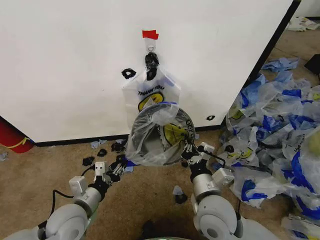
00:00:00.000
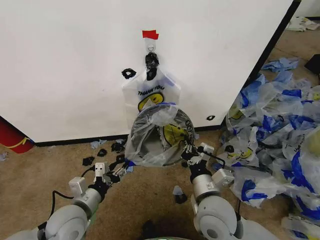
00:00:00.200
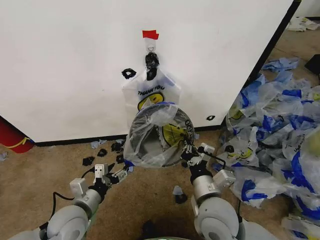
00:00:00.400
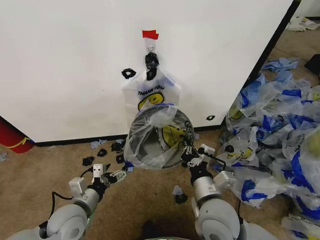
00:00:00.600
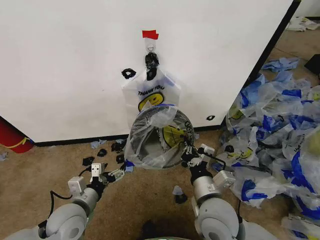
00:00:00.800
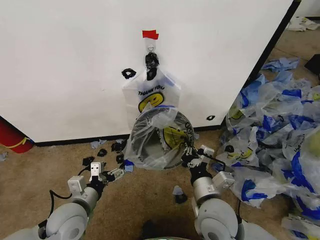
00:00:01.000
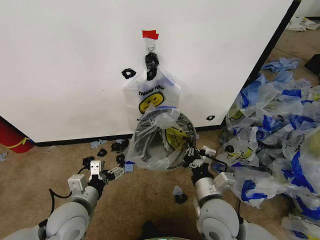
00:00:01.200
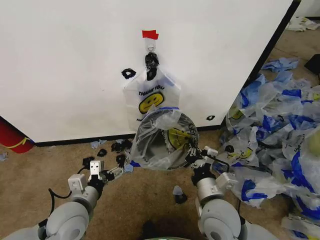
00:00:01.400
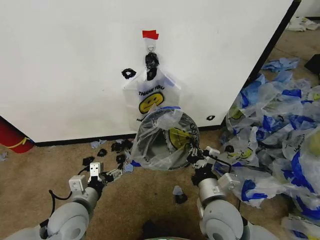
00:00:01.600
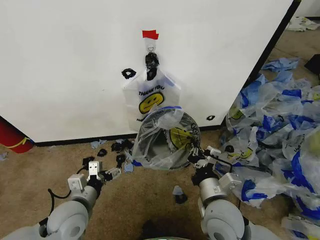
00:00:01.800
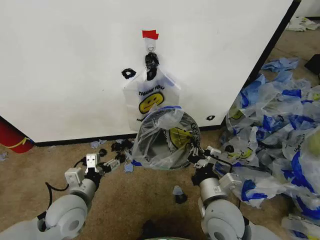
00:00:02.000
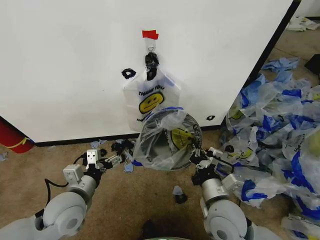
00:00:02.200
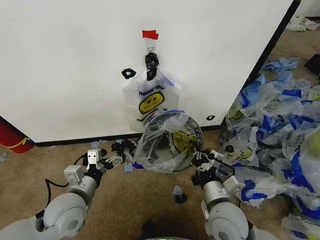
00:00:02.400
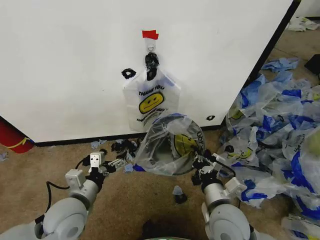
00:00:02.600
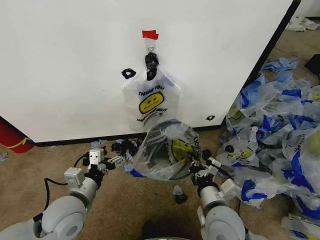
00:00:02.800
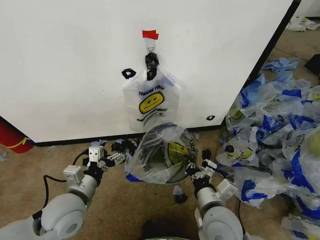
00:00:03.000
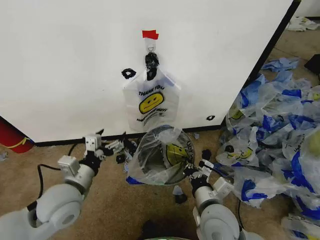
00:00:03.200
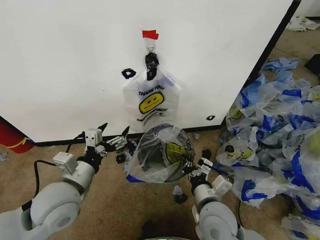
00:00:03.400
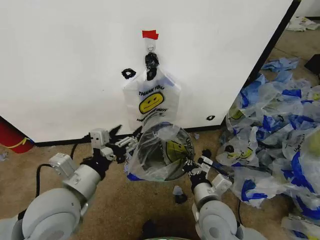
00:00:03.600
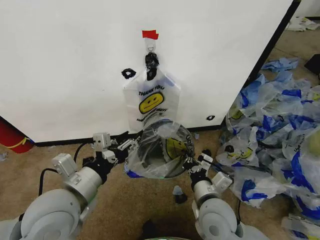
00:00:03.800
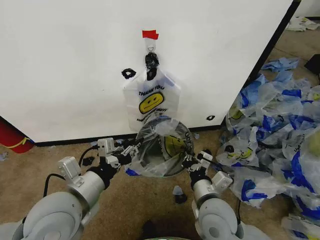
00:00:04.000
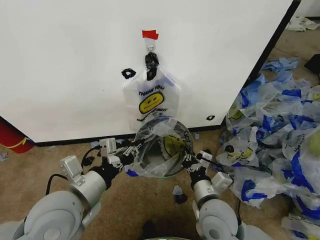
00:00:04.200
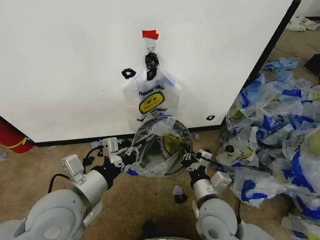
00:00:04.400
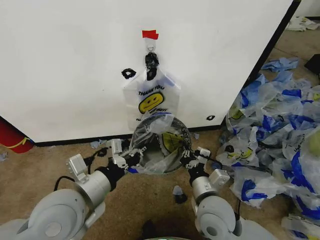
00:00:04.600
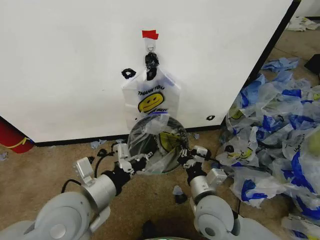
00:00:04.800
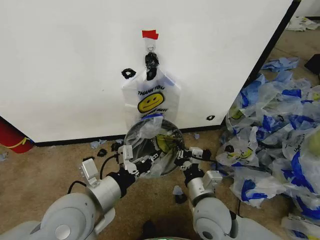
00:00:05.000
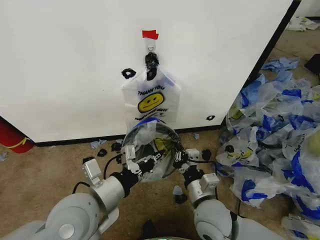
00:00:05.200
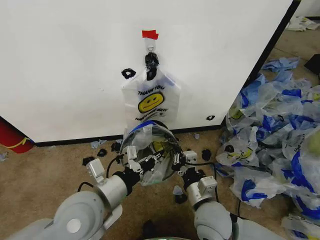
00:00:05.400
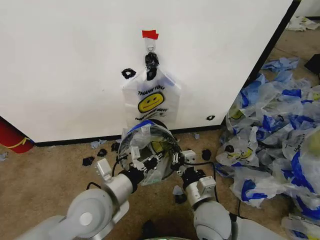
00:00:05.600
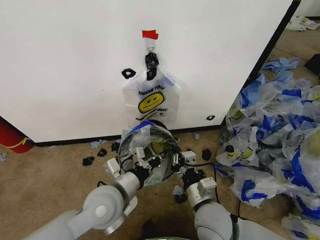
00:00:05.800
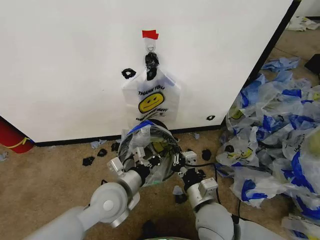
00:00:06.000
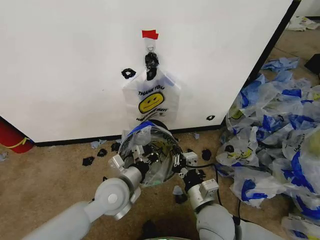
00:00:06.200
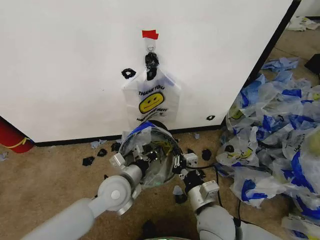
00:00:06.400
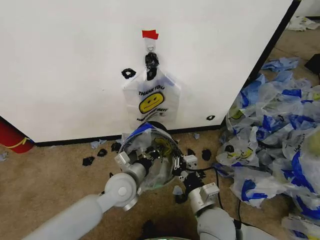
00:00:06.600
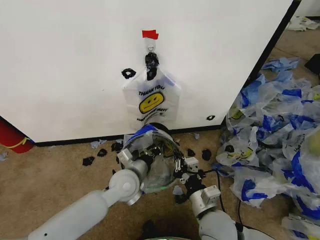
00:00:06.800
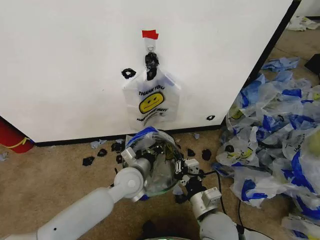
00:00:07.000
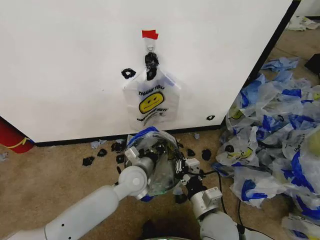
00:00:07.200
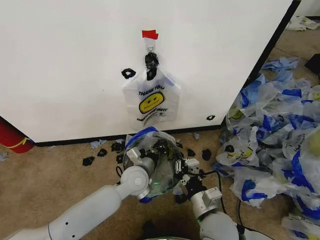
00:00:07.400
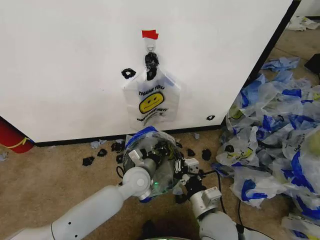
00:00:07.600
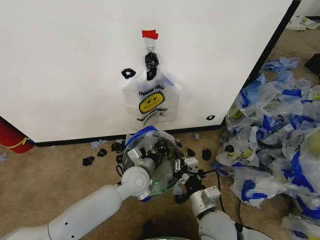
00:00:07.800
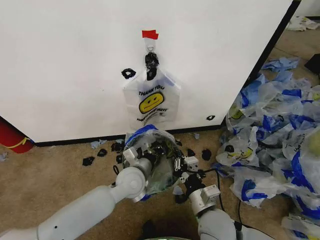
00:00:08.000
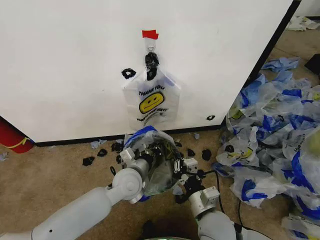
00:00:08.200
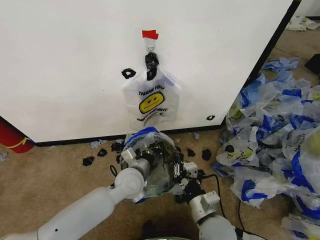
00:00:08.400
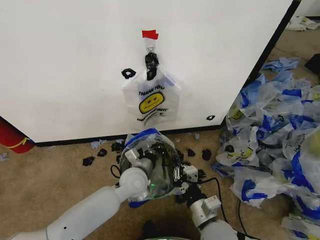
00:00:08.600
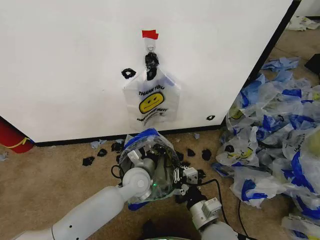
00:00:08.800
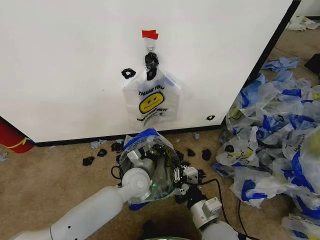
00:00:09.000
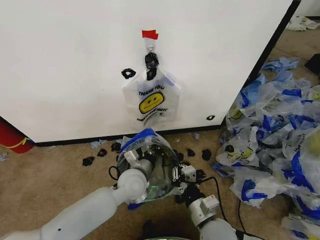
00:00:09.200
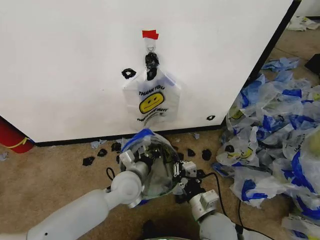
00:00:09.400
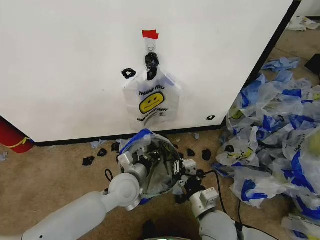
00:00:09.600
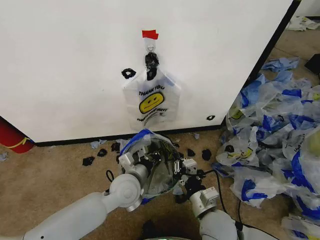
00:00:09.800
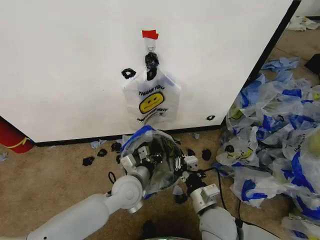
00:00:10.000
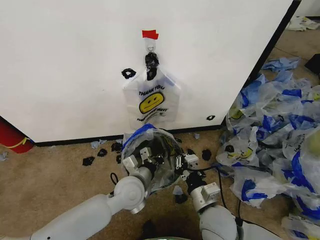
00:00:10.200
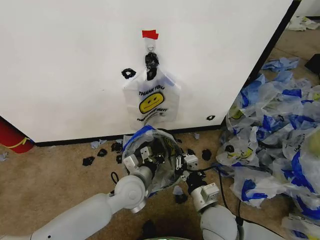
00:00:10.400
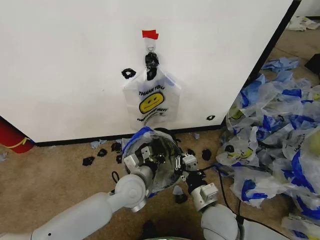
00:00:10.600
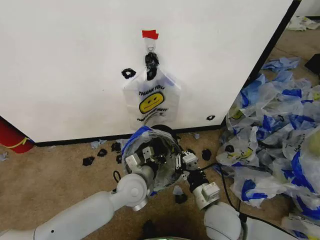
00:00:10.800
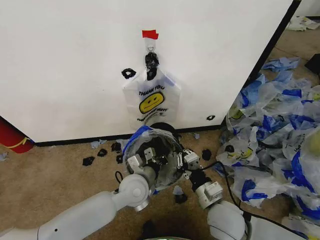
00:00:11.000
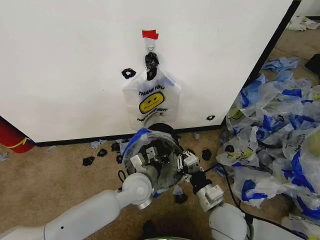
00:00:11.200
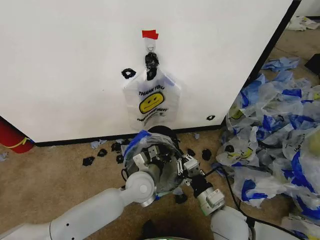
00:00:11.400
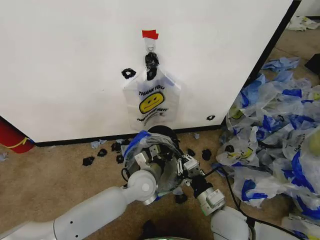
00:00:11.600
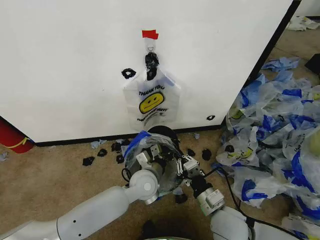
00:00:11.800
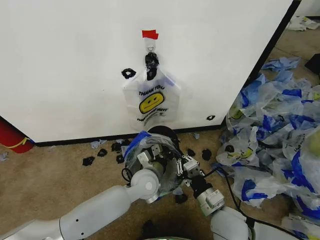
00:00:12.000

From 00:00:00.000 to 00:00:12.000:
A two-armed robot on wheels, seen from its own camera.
Task of the whole recording: Pick up the garbage bag from the wall and place it over the trash bin.
From 00:00:00.000 to 00:00:01.600: The left gripper opens its fingers.
From 00:00:01.600 to 00:00:03.000: There are only small adjustments of the grippers.
From 00:00:03.000 to 00:00:04.400: The left gripper shifts roughly 10 cm upward, and closes its fingers.
From 00:00:04.400 to 00:00:06.000: The left gripper moves downward, to the right and forward, some 10 cm.
From 00:00:06.000 to 00:00:07.600: The left gripper shifts roughly 15 cm forward, downward and to the right.
From 00:00:07.600 to 00:00:09.000: There are only small adjustments of the grippers.
From 00:00:09.000 to 00:00:10.400: The left gripper shifts by about 5 cm.
From 00:00:10.400 to 00:00:12.000: The left gripper moves some 5 cm.

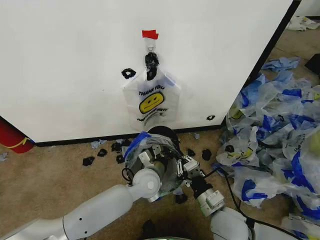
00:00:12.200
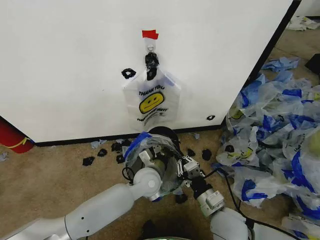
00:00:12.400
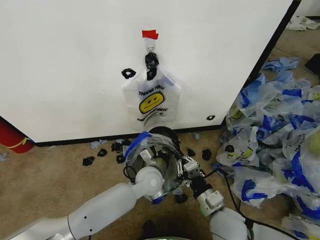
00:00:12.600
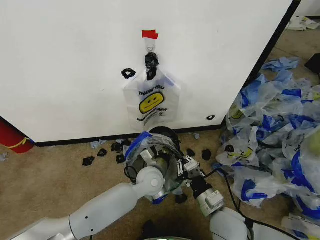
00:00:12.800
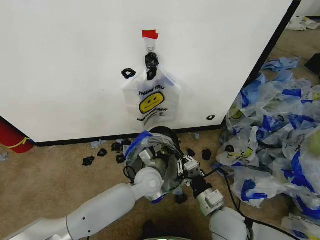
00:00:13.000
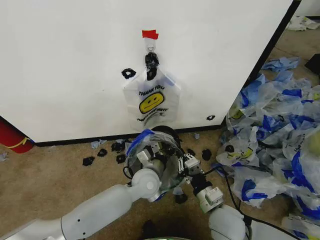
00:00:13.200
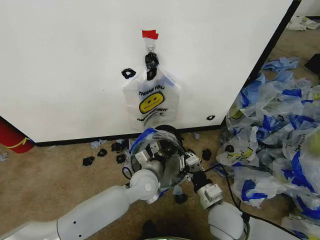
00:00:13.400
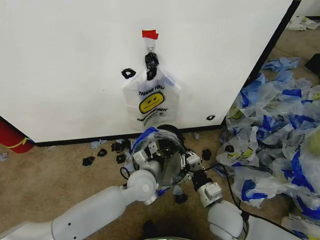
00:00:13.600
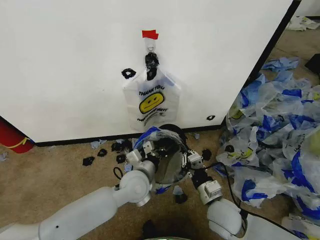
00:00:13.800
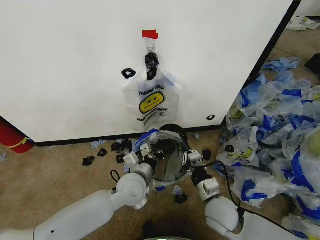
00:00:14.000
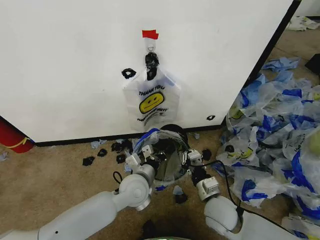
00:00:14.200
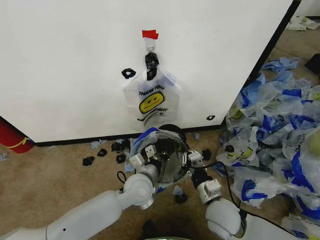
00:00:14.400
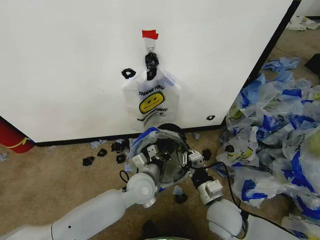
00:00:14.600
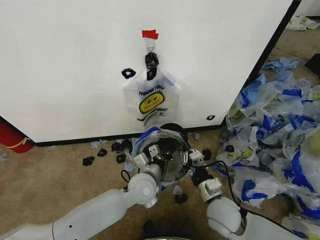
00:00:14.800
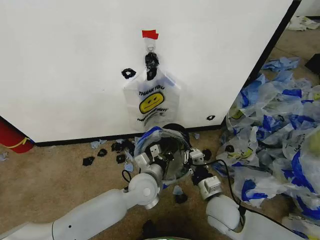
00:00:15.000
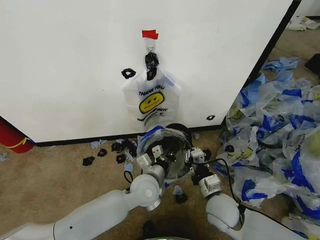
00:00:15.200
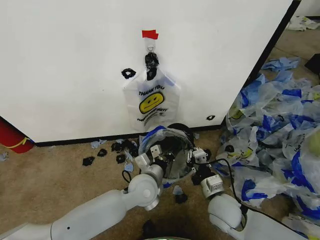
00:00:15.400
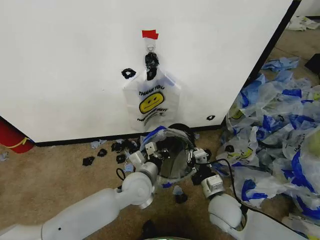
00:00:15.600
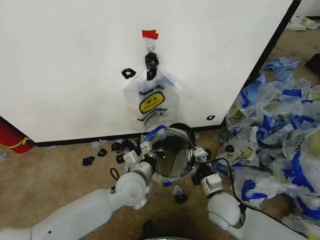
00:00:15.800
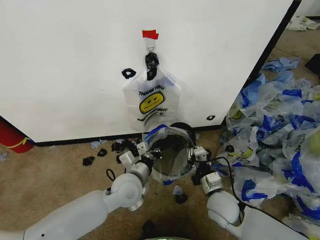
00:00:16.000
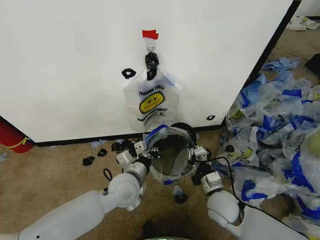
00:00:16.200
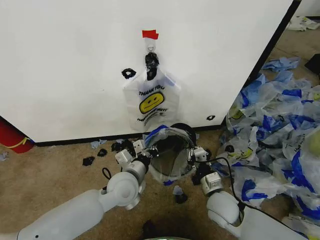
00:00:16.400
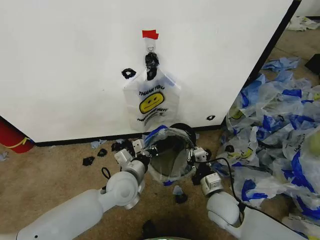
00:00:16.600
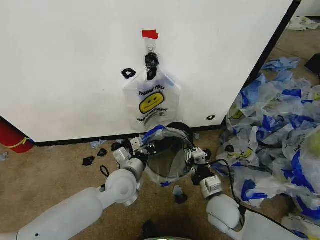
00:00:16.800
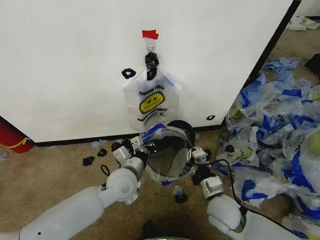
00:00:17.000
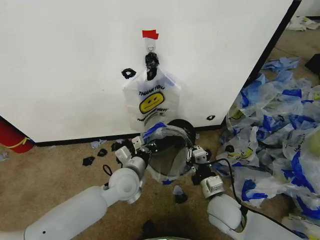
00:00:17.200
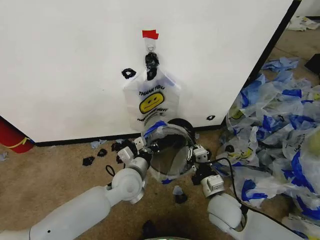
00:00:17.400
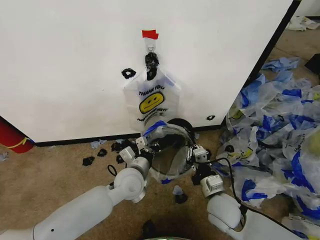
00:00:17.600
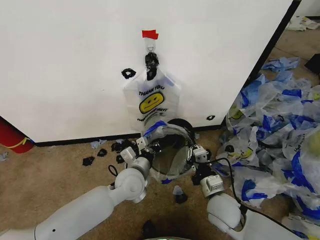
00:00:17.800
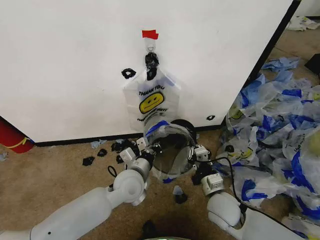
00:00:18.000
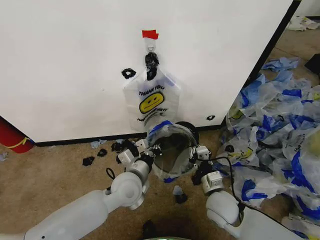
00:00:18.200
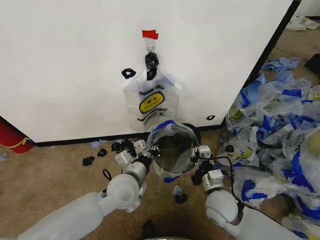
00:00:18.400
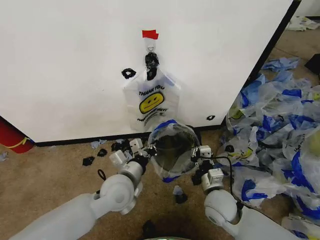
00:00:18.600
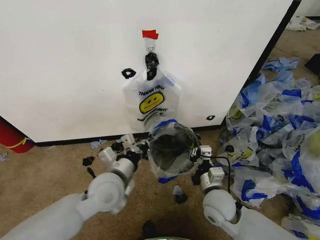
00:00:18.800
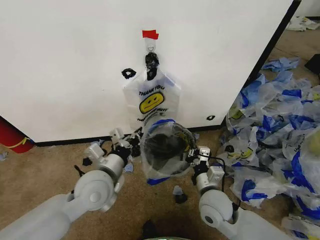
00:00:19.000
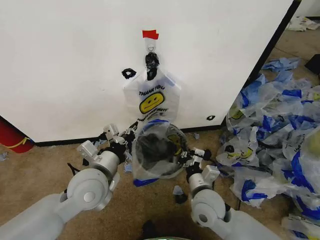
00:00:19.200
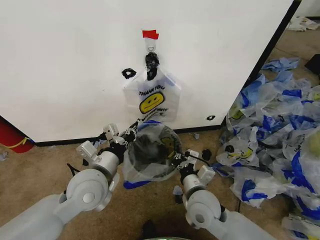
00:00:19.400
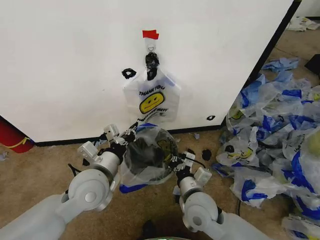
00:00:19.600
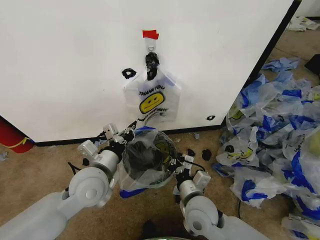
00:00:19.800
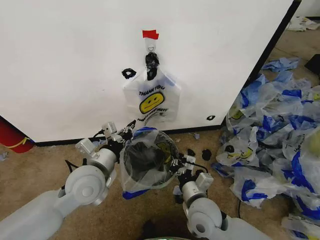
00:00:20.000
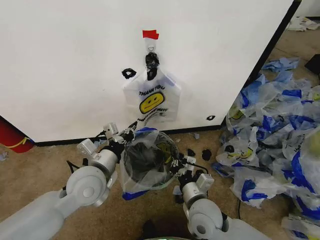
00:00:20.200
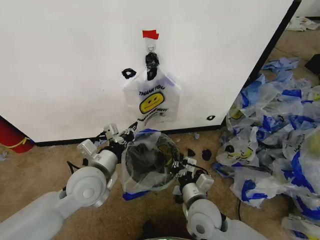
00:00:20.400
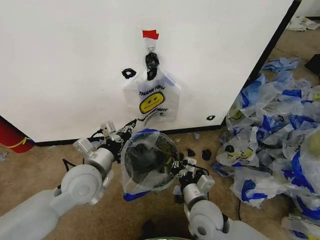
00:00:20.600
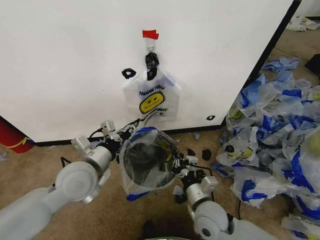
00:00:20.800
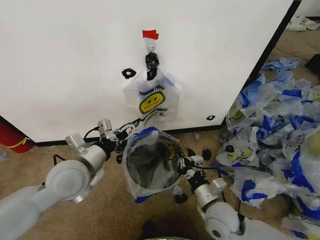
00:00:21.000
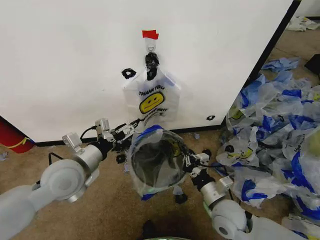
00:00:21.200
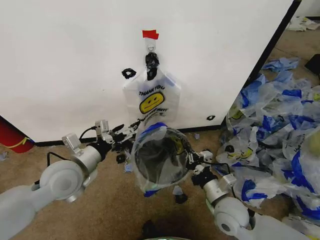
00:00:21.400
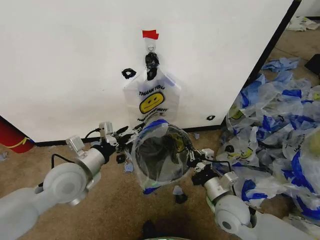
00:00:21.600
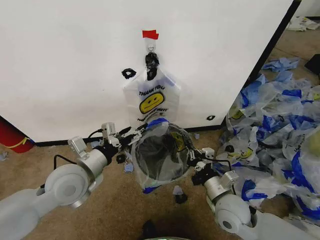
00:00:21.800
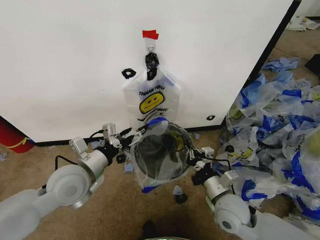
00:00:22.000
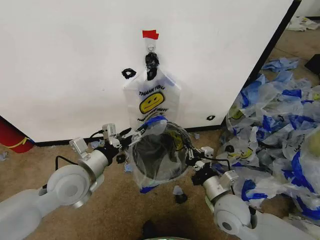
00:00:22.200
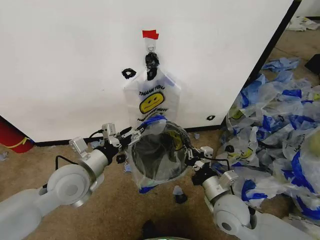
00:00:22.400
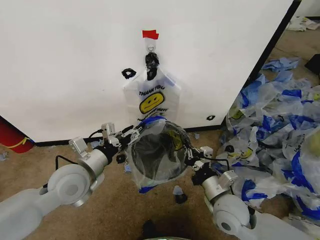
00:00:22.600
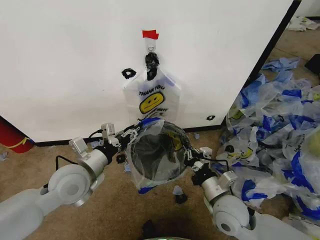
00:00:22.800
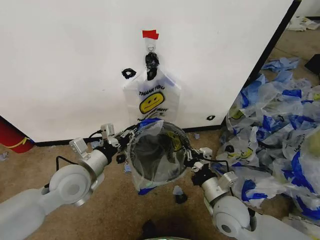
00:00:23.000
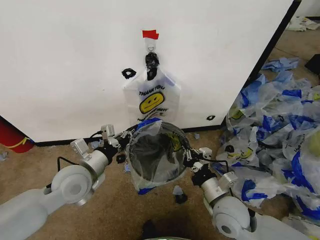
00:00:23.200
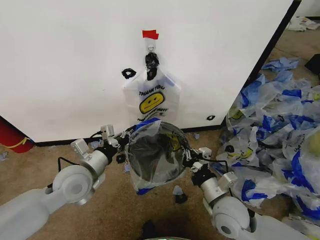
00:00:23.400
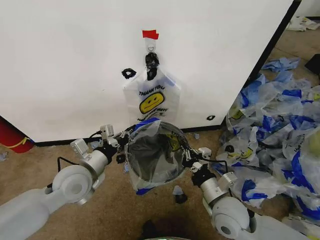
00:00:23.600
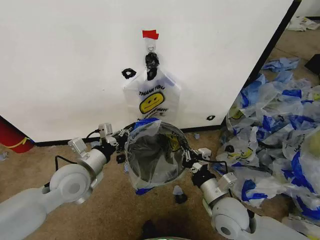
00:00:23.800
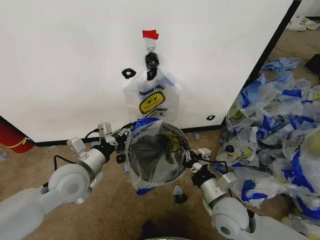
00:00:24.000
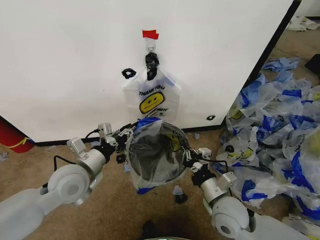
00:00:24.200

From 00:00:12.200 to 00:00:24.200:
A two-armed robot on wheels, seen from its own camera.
Task of the whole recording: Pick up the garbage bag from the wall and place it over the trash bin.
From 00:00:12.200 to 00:00:13.800: The left gripper shifts by approximately 5 cm.
From 00:00:13.800 to 00:00:15.200: The grippers stay close to where they were, moving slightly.
From 00:00:15.200 to 00:00:16.600: The left gripper travels to the left by about 5 cm.
From 00:00:16.600 to 00:00:18.200: The grippers move only a little.
From 00:00:18.200 to 00:00:19.800: The right gripper moves to the left, some 10 cm. Meanwhile the left gripper is displaced to the left and upward by some 10 cm.
From 00:00:19.800 to 00:00:21.200: The right gripper goes approximately 10 cm to the right. The left gripper shifts about 5 cm to the left, and opens.
From 00:00:21.200 to 00:00:22.600: The grippers make only small movements.
From 00:00:22.600 to 00:00:24.200: The left gripper closes, then reopens.
